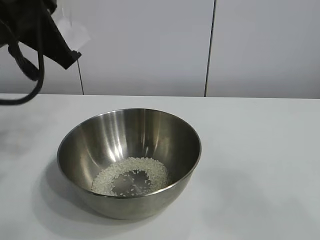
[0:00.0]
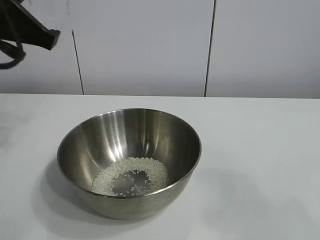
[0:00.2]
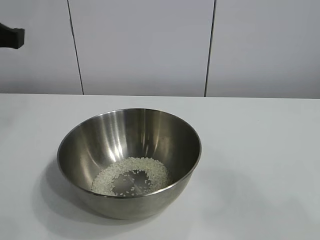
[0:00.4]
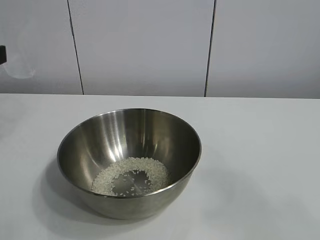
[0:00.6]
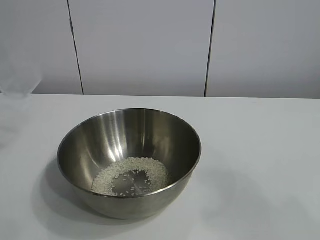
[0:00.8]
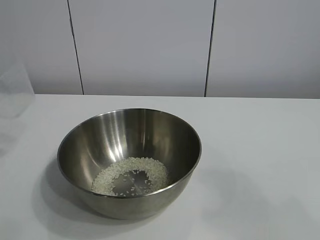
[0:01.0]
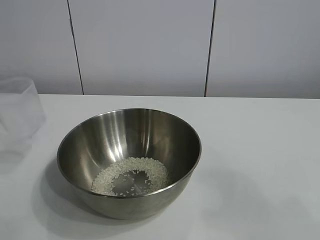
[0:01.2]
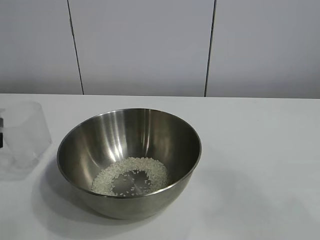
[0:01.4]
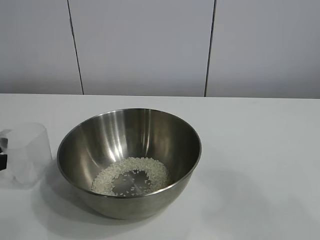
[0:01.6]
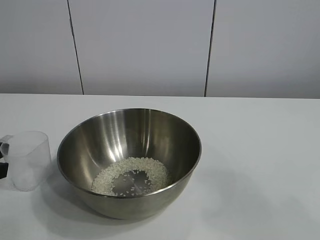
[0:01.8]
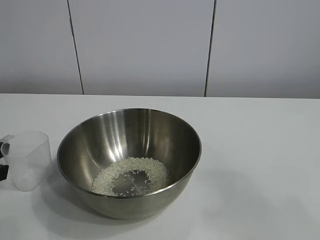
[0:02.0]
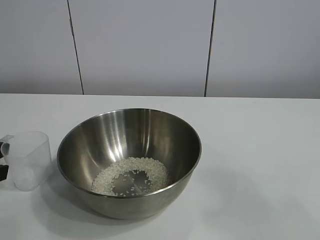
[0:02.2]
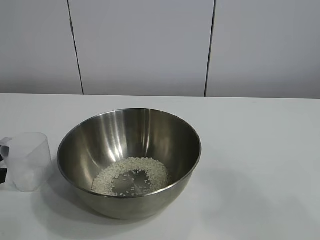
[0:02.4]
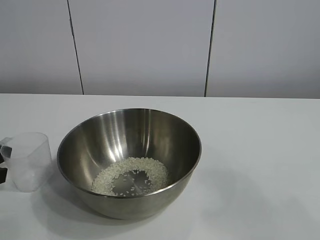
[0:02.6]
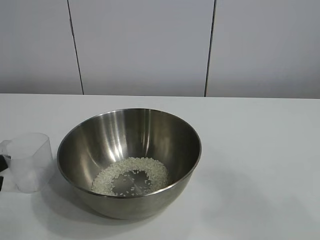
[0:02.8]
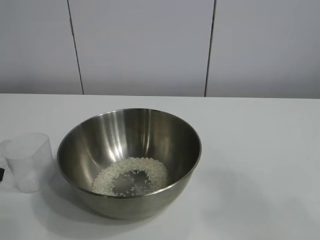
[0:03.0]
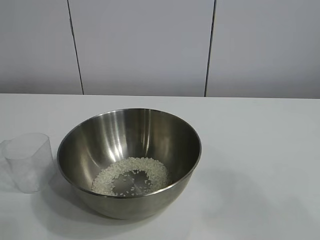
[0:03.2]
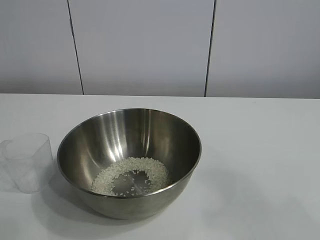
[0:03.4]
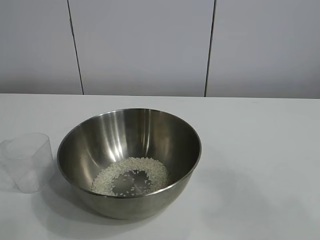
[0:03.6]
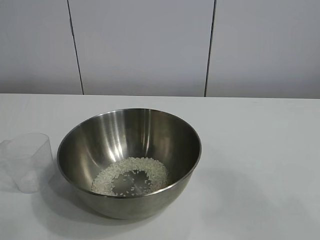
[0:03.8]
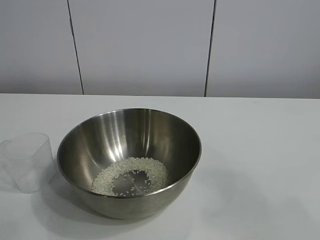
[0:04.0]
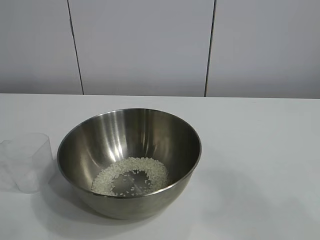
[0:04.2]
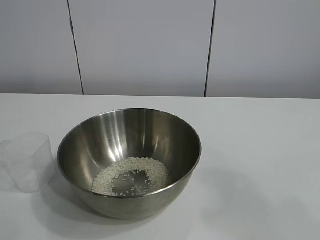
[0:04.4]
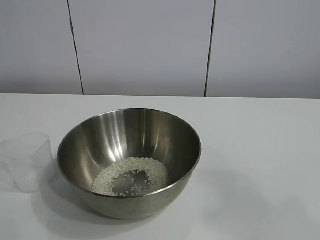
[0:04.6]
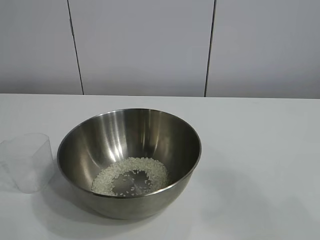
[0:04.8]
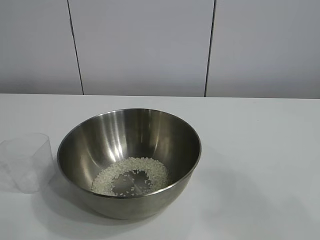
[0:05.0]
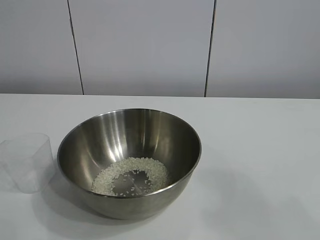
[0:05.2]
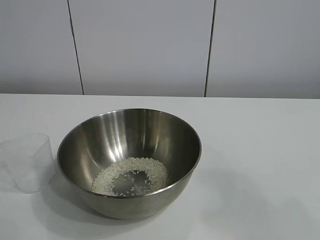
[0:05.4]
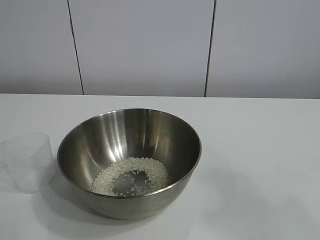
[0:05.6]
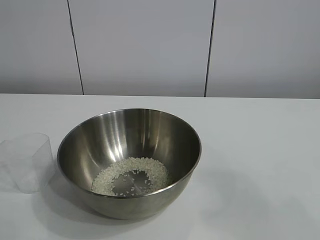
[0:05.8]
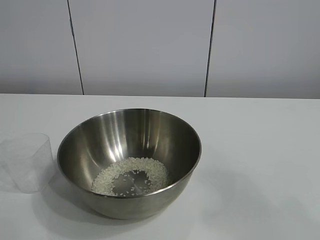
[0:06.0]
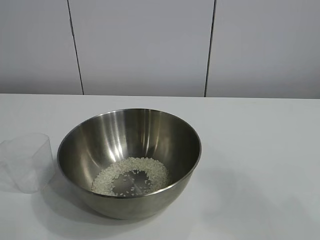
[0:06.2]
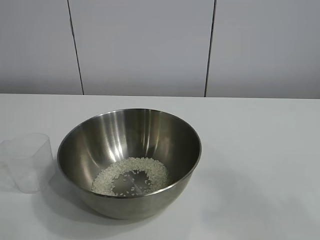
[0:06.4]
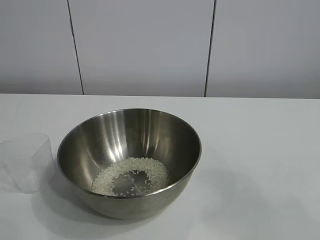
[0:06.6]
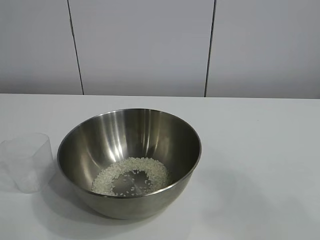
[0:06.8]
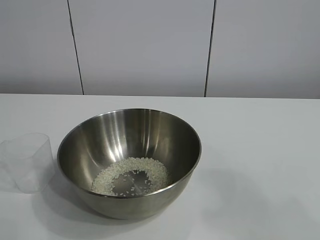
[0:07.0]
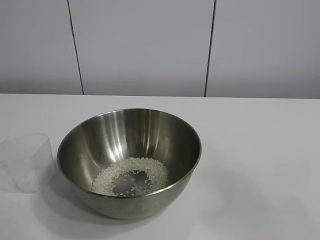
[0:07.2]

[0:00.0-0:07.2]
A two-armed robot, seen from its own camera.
Task of the whole recording: the right gripper grasp the rice container and place it in the center of the table, the left gripper grasp the rice scoop and pour the rice into the rice container.
Step, 0:00.0 to 0:02.6: Place the cup on the table with the left gripper.

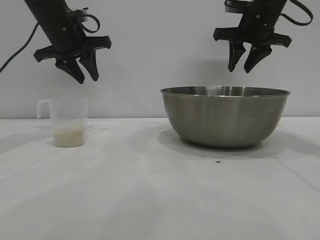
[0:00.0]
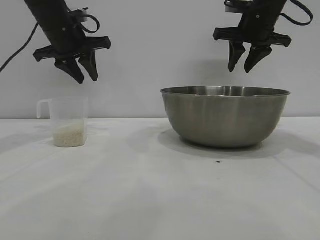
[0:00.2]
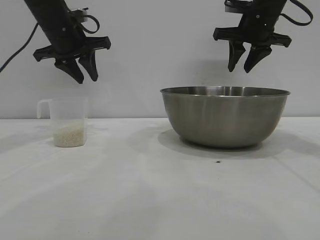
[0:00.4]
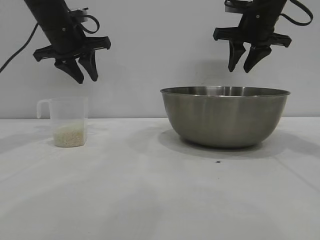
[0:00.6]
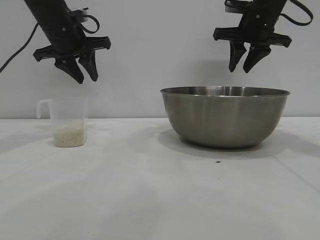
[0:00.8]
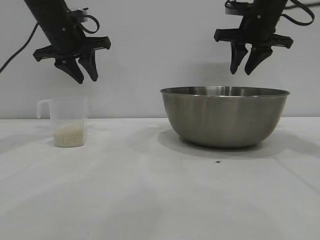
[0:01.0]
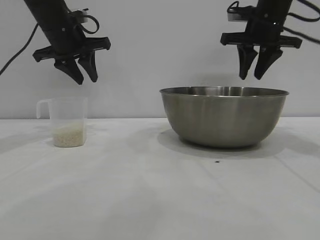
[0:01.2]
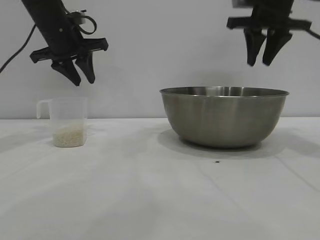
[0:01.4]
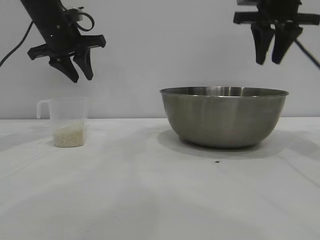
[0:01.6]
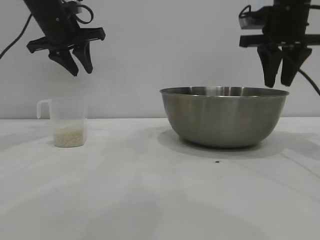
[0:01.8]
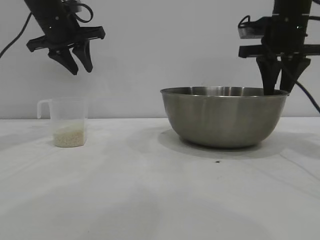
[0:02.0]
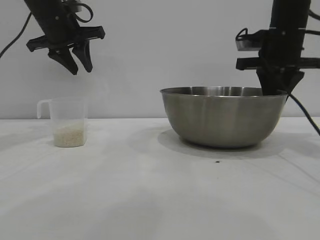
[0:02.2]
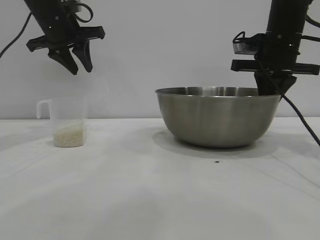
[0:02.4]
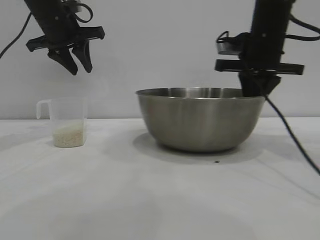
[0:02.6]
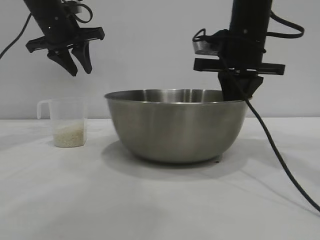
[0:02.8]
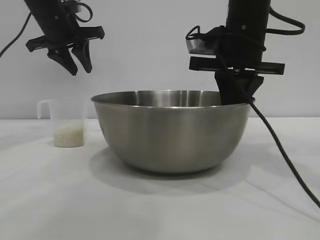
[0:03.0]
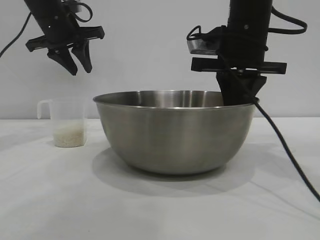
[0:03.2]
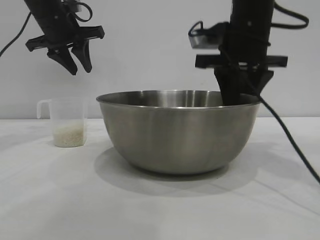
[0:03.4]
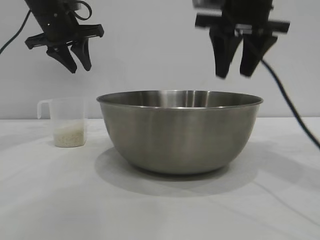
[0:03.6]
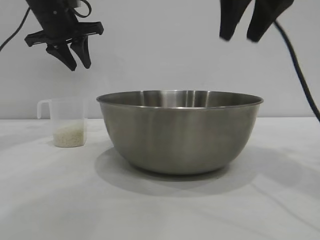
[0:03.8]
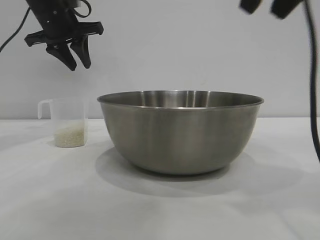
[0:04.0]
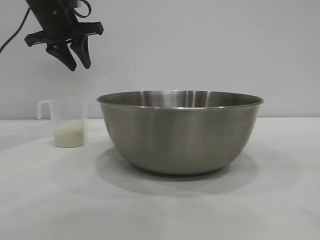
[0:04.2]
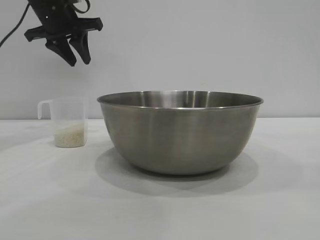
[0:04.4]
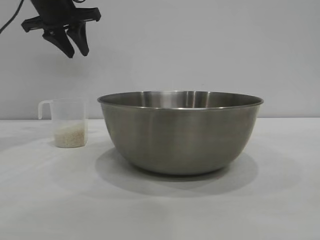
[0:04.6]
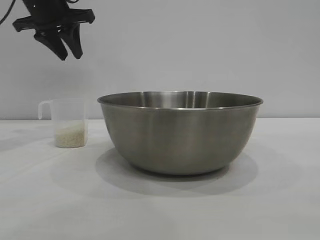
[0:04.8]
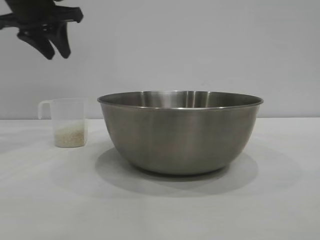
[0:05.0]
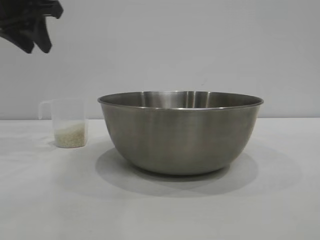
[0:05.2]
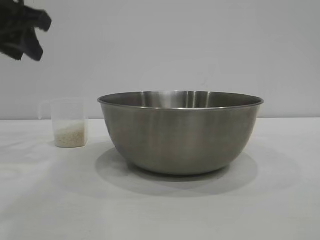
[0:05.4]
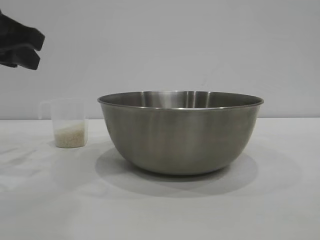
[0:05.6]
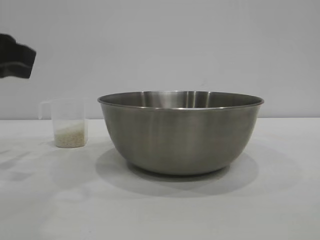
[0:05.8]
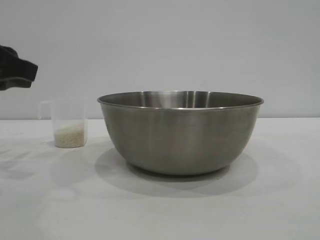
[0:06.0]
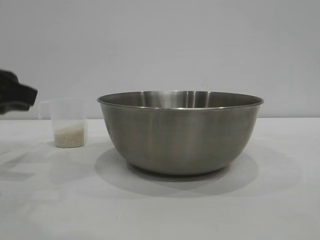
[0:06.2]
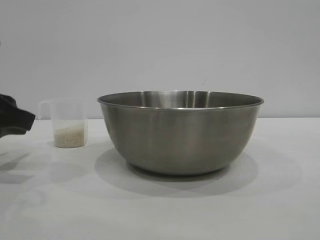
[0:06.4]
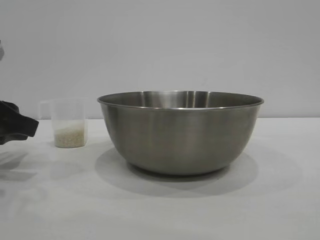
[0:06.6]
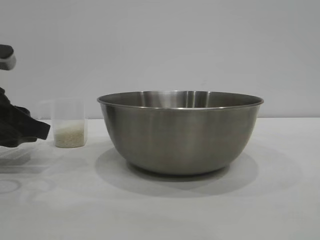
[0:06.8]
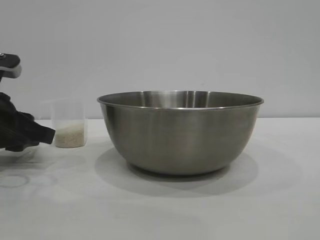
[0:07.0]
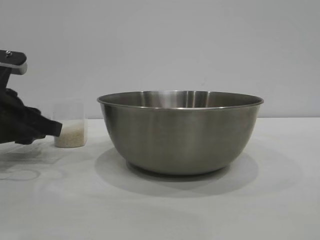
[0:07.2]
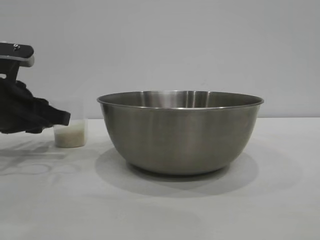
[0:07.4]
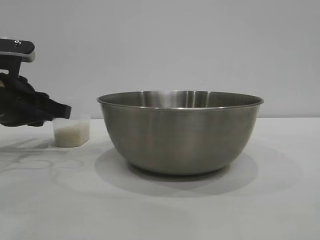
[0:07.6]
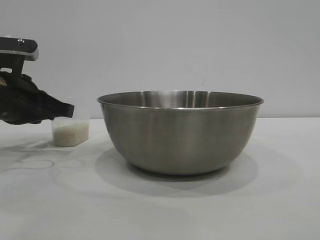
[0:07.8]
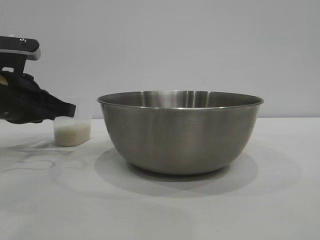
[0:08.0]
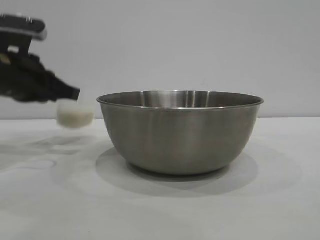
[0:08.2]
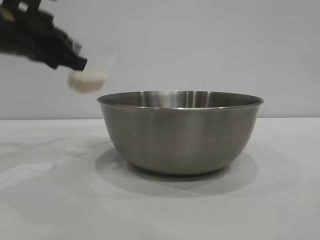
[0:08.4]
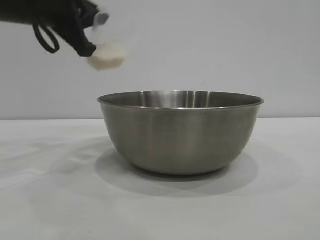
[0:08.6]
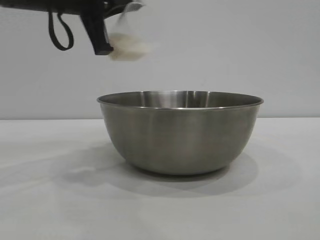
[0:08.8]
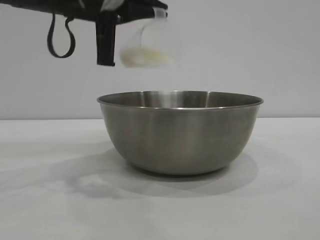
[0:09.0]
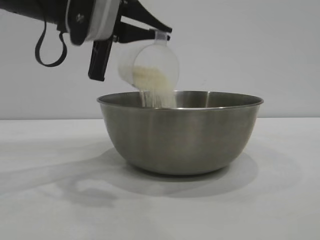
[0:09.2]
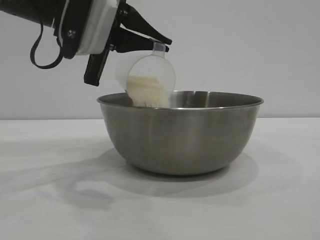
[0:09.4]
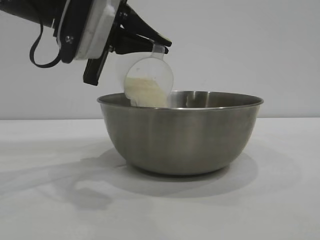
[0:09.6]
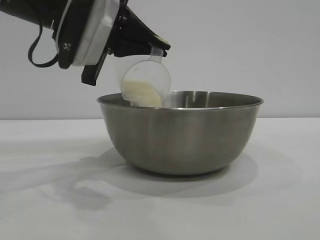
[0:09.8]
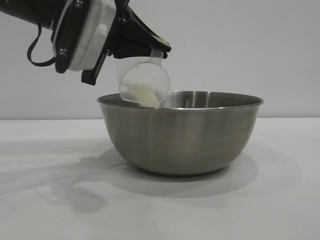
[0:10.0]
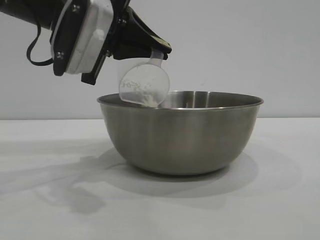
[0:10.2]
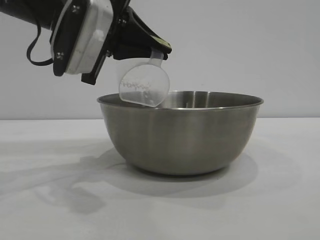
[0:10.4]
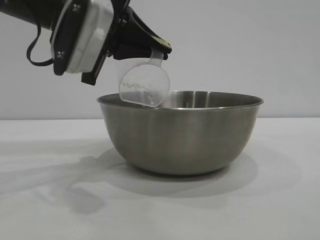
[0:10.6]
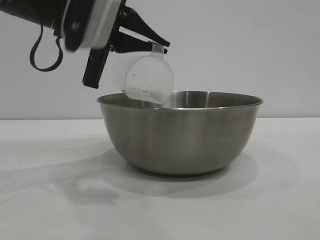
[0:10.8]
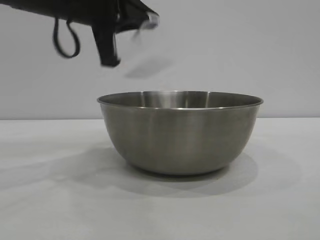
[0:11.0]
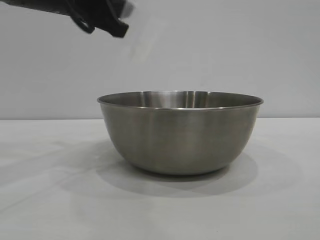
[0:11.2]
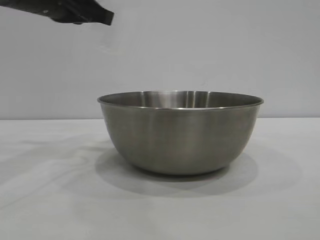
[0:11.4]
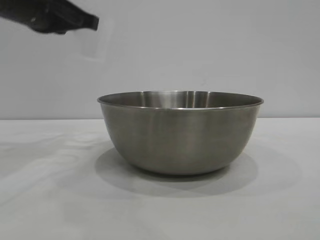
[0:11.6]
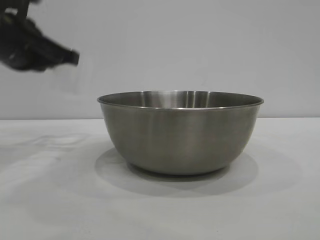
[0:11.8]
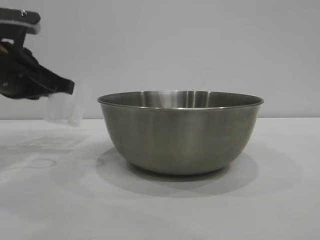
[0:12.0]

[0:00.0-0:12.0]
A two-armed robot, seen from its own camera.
Task of the whole recording: the right gripper grasp the rice container and place it in the center of the table, the left gripper grasp the rice scoop and pour the rice into the rice container.
Step, 0:00.0 to 0:03.4: Move the bowl to the center of view with the right gripper.
Step, 0:03.8 to 0:08.2: Pick up the cup with rice in it with the left gripper.
Step, 0:08.6 to 0:11.0: Pour the rice from the cup into the bowl with the left gripper.

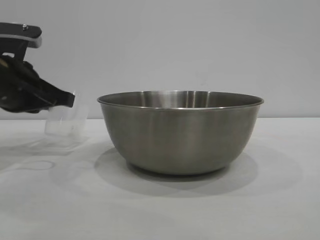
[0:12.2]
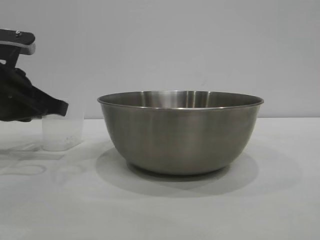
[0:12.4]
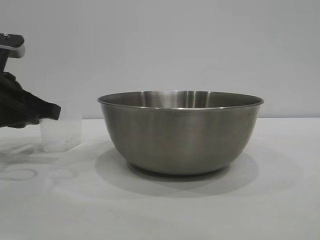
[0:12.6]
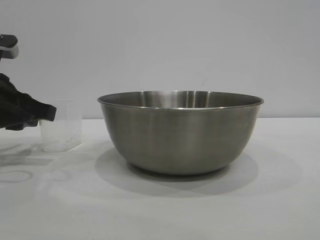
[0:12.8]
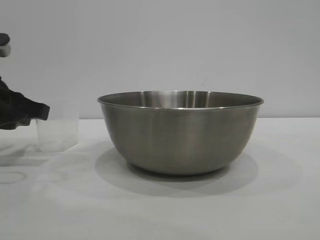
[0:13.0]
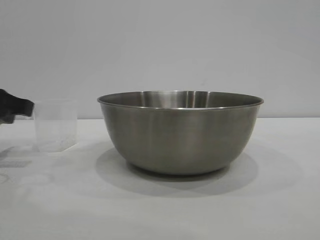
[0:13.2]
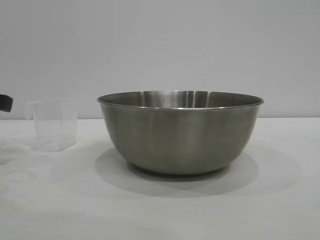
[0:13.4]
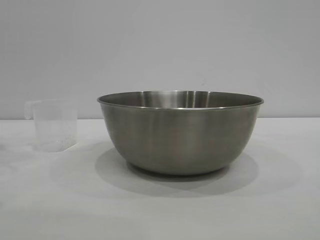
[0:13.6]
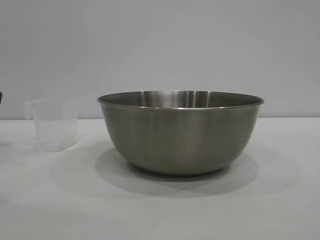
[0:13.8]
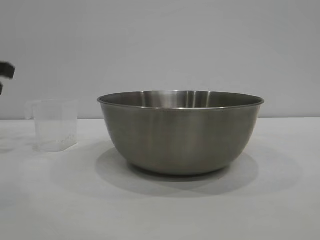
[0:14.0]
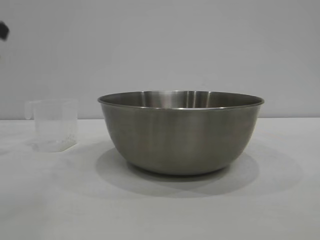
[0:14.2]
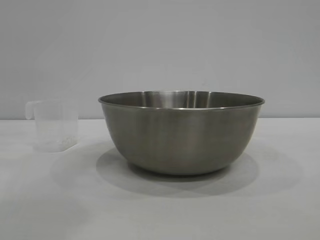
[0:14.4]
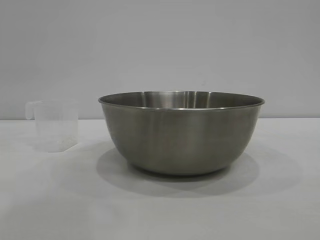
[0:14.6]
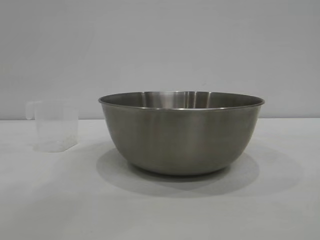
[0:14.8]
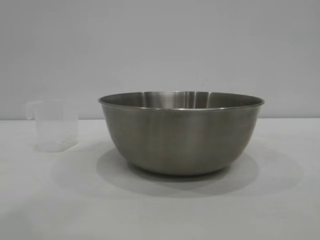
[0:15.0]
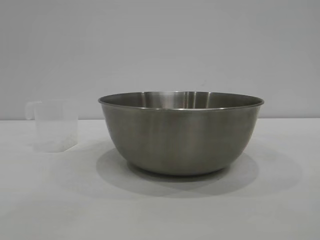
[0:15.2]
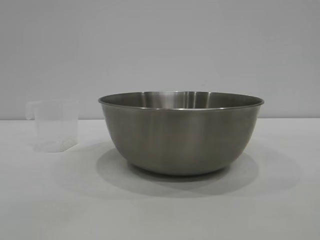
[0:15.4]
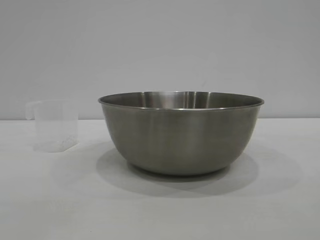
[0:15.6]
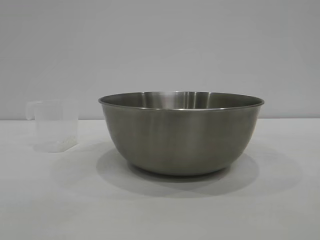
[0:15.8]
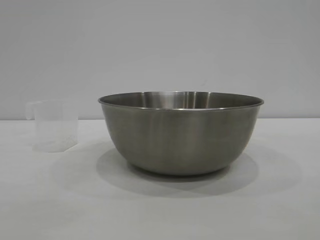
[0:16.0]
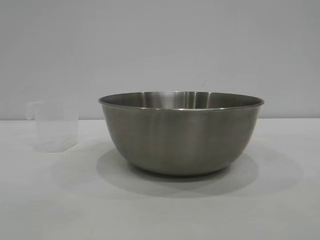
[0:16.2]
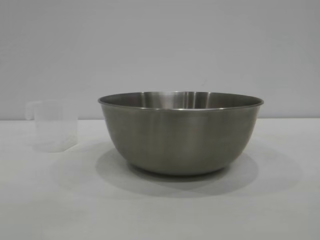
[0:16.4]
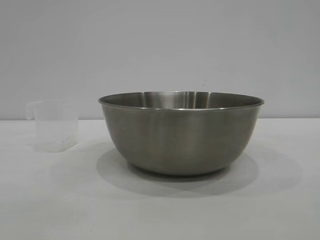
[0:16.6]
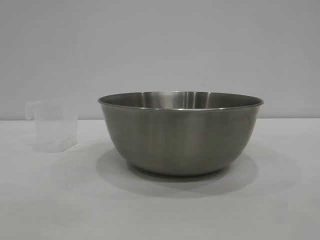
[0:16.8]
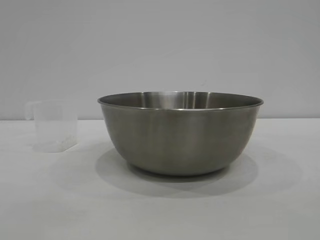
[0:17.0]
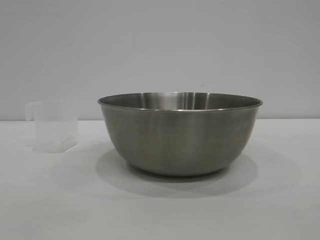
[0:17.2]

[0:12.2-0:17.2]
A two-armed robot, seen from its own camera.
Task of the whole recording: the right gripper grasp the rice container and place it in the center of the table, the left gripper grasp the rice scoop and pour the rice into the rice container.
Step, 0:12.2 to 0:13.4: Place the cup on the table with the left gripper.
